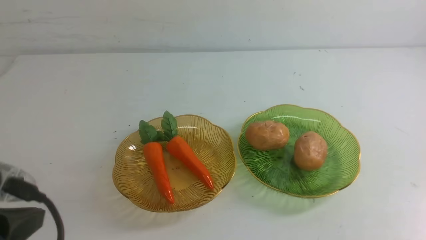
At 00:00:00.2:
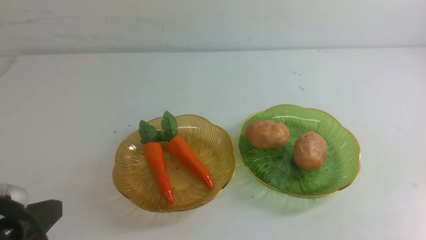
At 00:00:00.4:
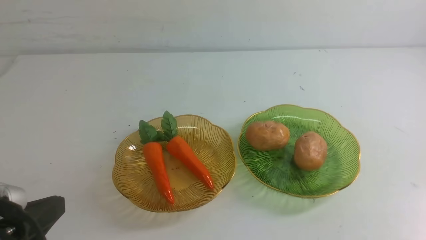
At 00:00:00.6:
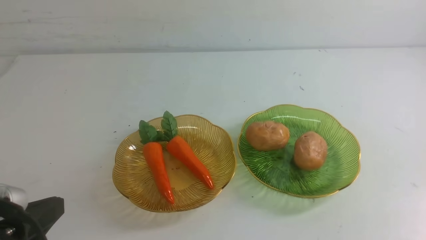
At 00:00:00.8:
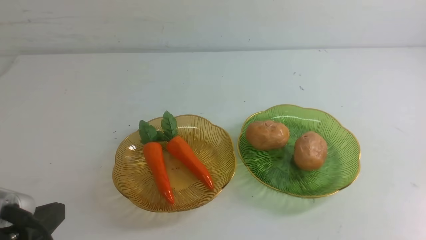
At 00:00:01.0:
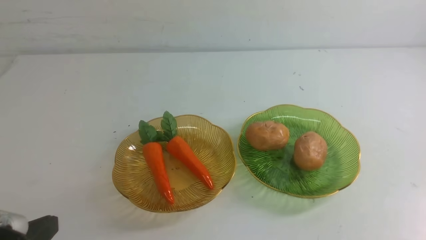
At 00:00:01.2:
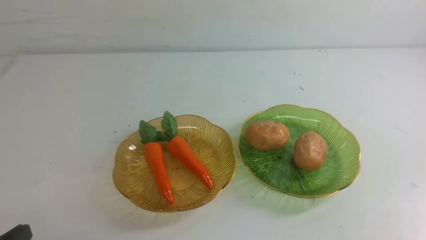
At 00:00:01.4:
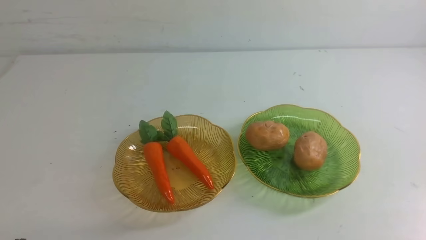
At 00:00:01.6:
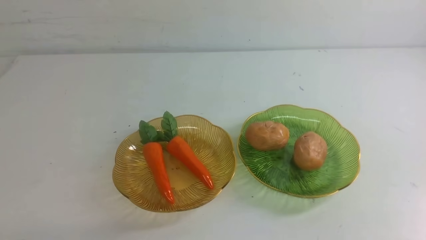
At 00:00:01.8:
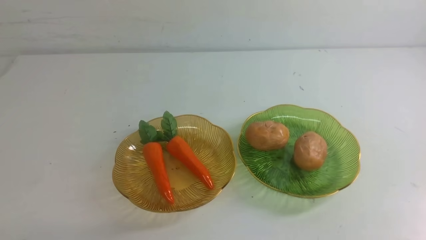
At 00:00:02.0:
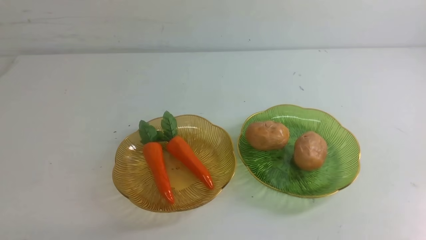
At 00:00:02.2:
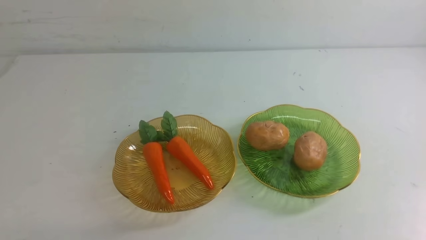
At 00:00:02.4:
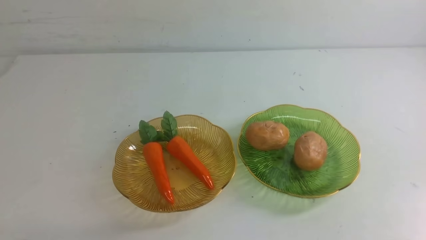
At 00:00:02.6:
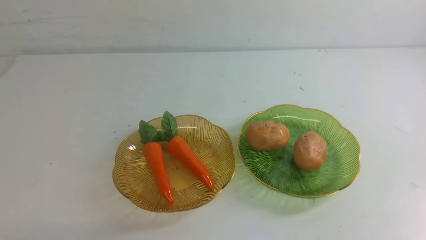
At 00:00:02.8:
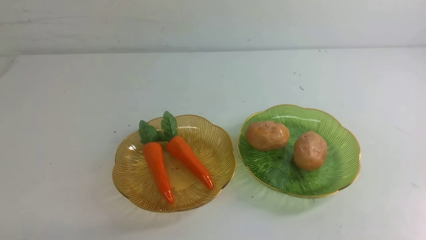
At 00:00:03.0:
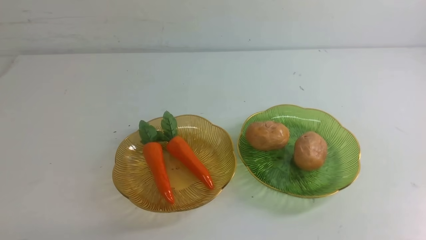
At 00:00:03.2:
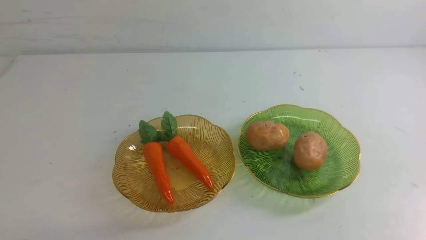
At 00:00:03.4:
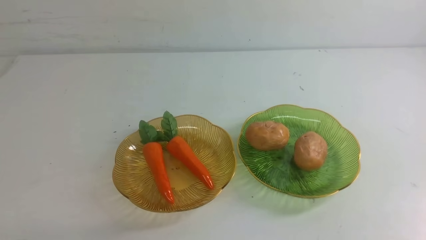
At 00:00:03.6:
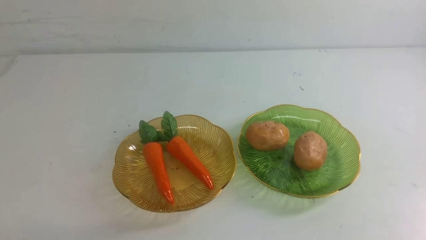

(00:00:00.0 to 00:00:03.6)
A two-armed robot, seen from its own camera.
00:00:00.0 - 00:00:01.8: The left gripper heads downward, covering roughly 15 cm.
00:00:01.8 - 00:00:03.6: Neither gripper changes place.
